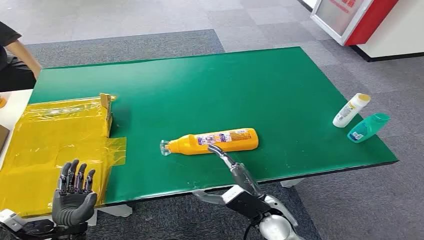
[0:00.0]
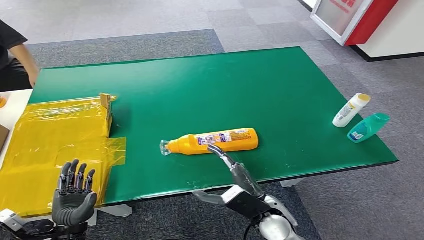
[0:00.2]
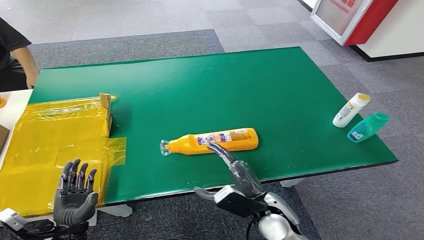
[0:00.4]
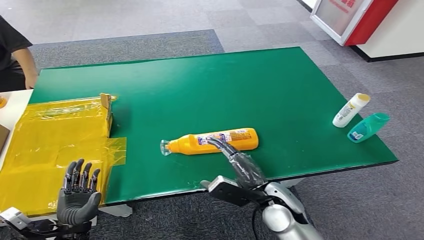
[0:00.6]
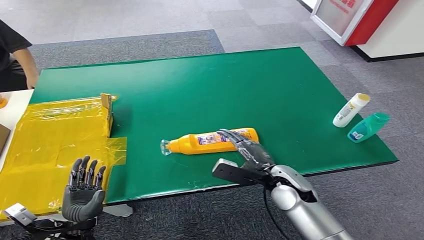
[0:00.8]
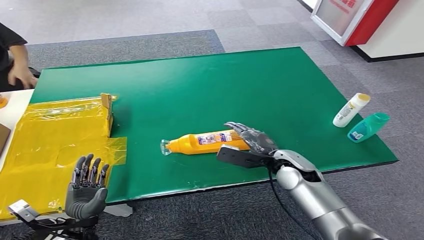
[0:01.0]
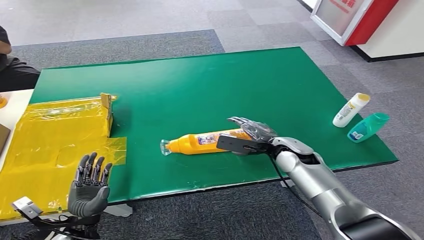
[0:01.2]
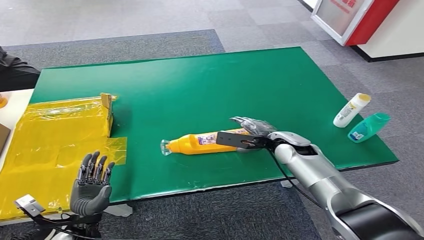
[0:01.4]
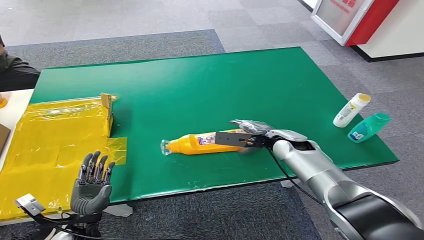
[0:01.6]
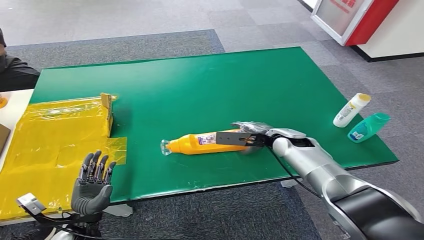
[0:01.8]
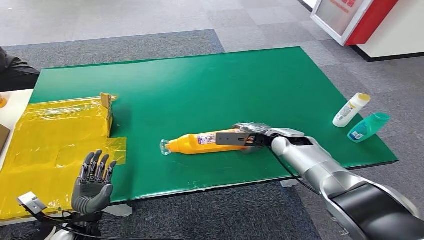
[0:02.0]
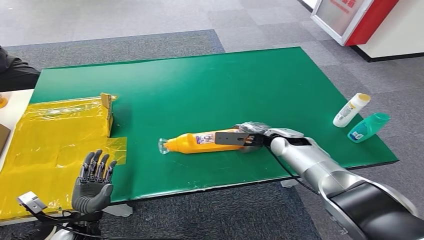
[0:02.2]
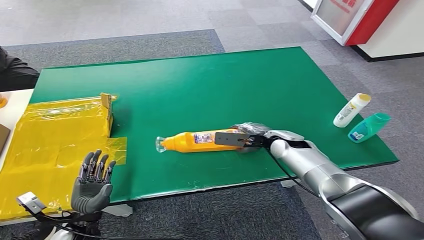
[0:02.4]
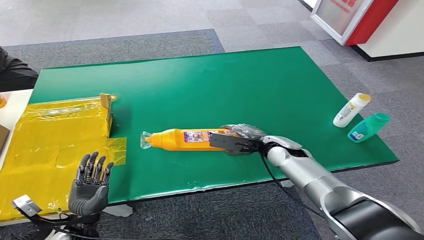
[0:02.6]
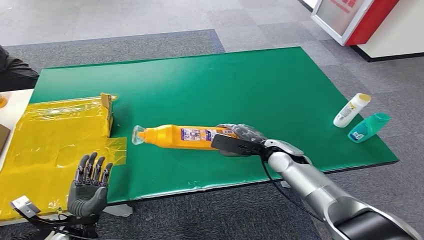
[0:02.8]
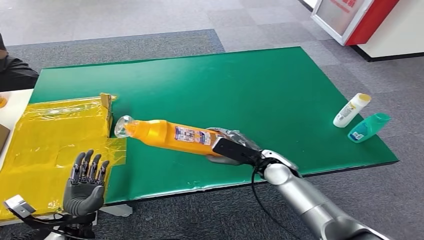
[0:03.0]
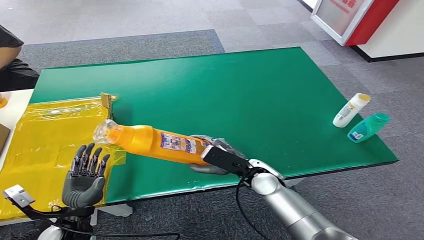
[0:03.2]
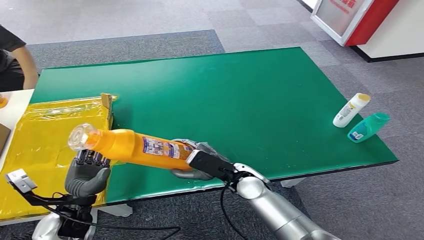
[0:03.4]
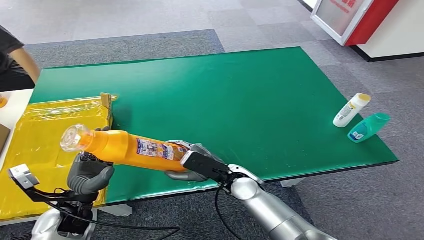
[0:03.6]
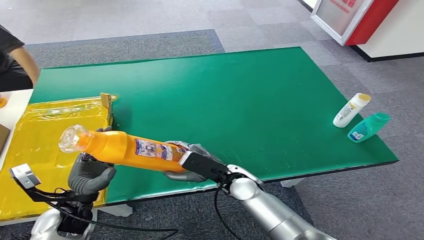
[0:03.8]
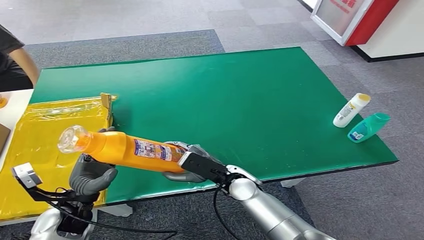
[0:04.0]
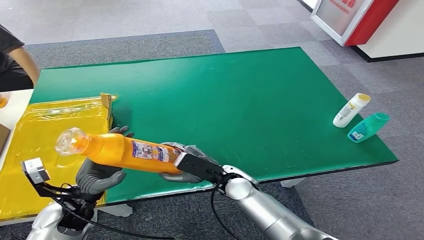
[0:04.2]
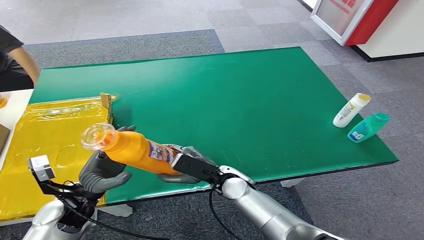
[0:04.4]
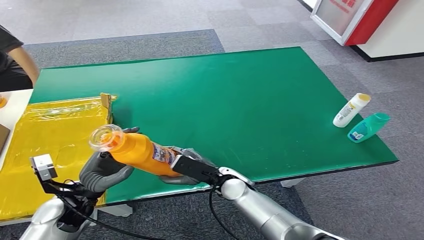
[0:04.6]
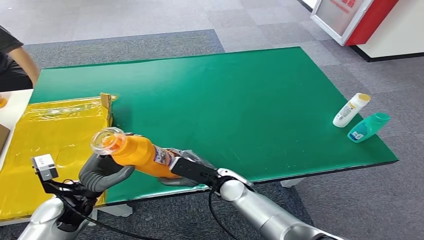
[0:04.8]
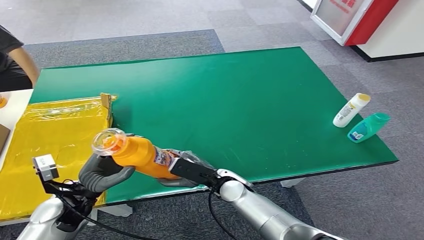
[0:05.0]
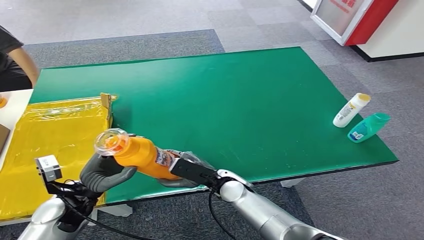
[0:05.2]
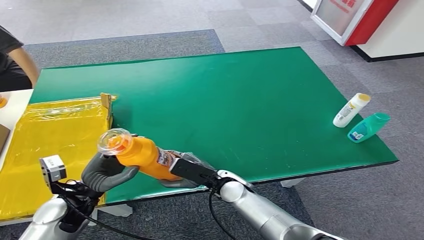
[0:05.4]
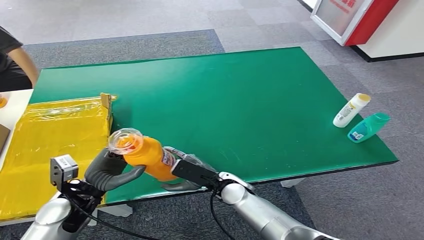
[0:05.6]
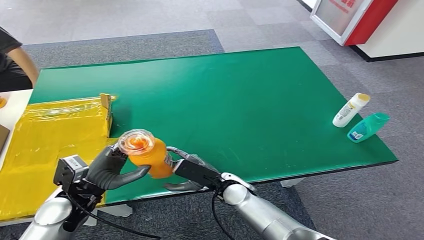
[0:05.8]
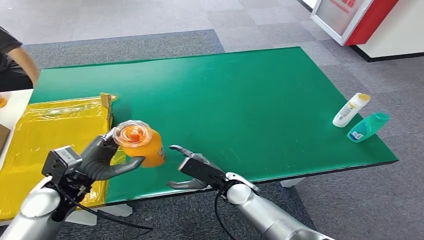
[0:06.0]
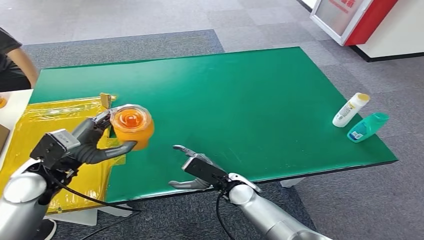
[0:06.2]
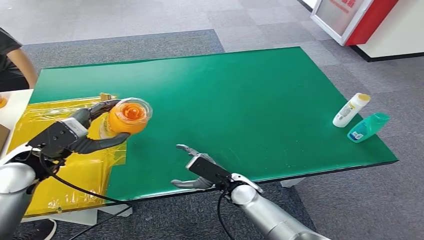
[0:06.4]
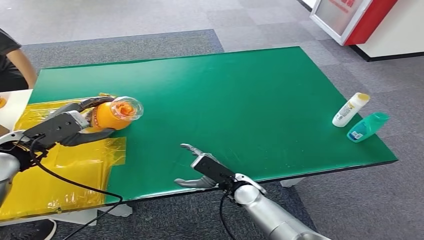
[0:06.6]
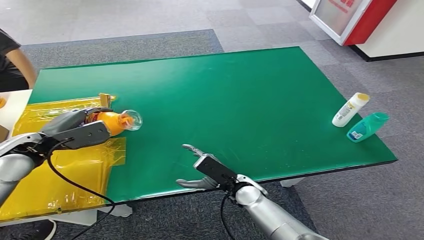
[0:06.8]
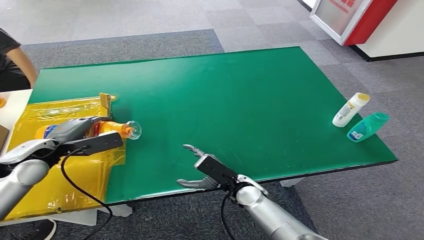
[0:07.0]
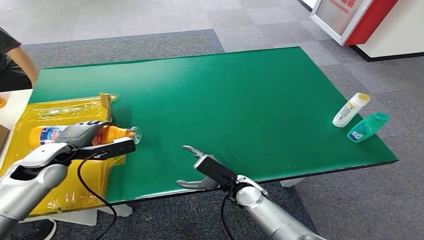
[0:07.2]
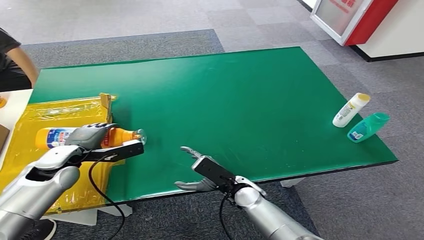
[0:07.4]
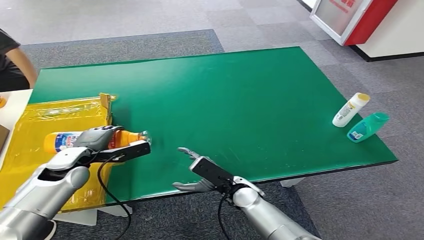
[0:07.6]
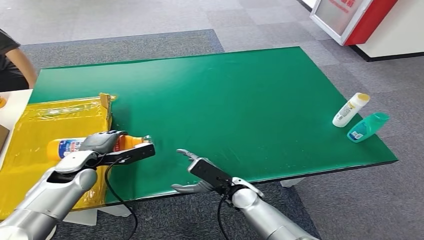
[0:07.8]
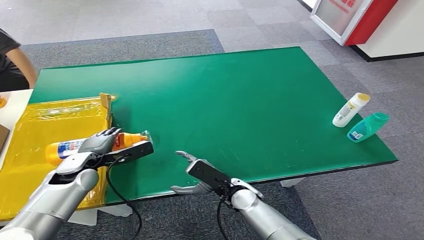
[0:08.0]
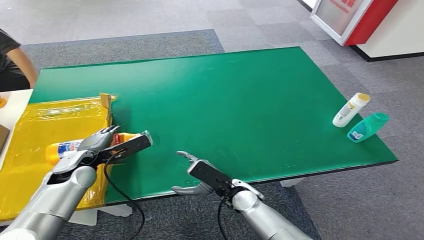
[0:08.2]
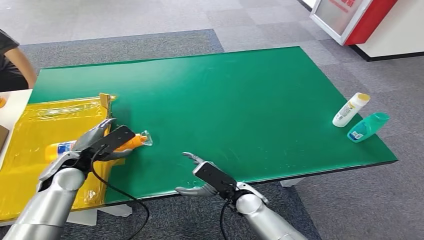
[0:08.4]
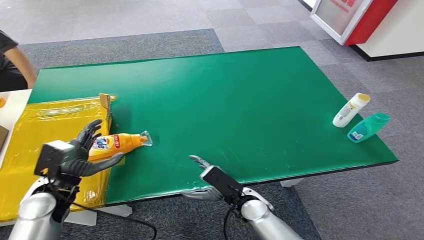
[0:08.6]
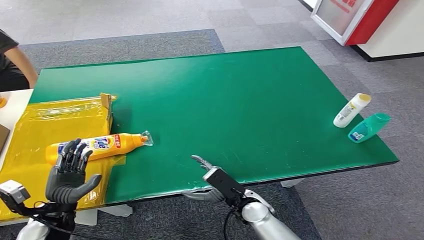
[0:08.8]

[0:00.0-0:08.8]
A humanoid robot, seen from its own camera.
Step, 0:00.0 to 0:03.2: Pick up the bottle from the table.
Step, 0:03.4 to 0:08.8: Turn the bottle to the front side.
0:01.4 to 0:03.0: The right hand is displaced backward by roughly 5 cm.
0:03.0 to 0:04.4: The right hand travels to the left by some 10 cm, while the left hand is displaced upward and forward by roughly 10 cm.
0:05.8 to 0:07.4: The left hand heads forward, covering roughly 10 cm, and reaches roughly 10 cm upward, then returns.
0:07.4 to 0:08.8: The left hand goes some 15 cm backward and downward.
